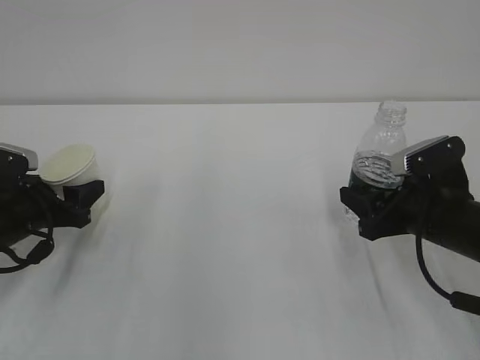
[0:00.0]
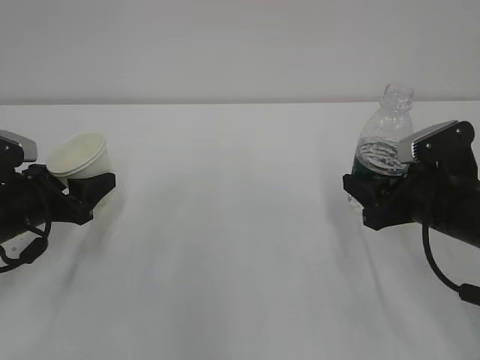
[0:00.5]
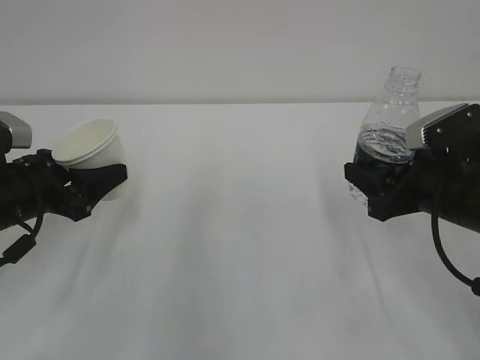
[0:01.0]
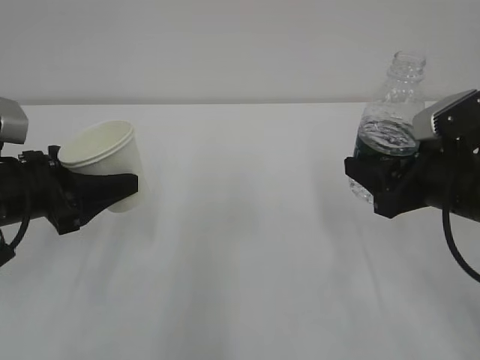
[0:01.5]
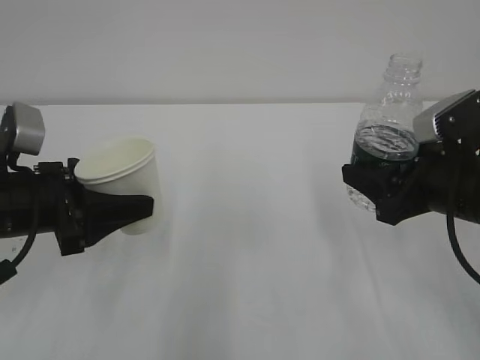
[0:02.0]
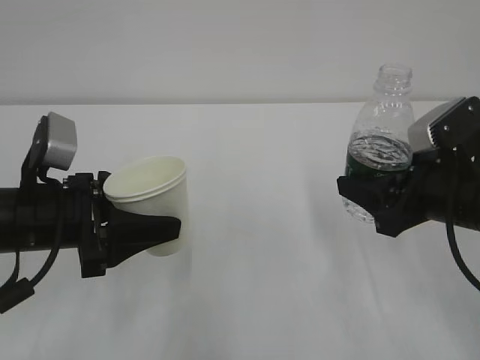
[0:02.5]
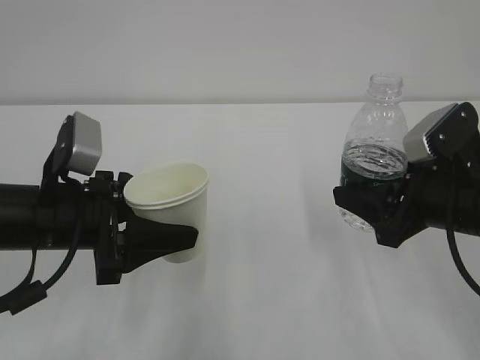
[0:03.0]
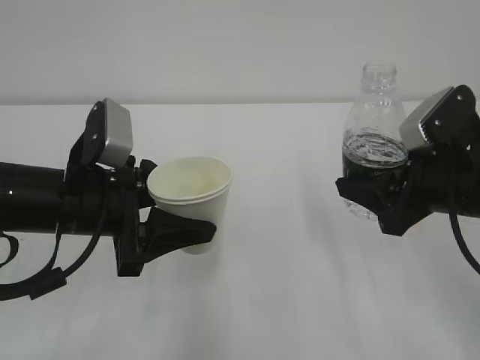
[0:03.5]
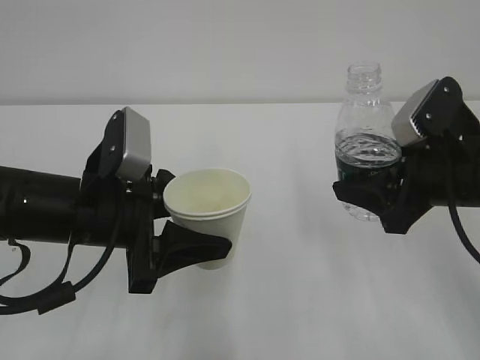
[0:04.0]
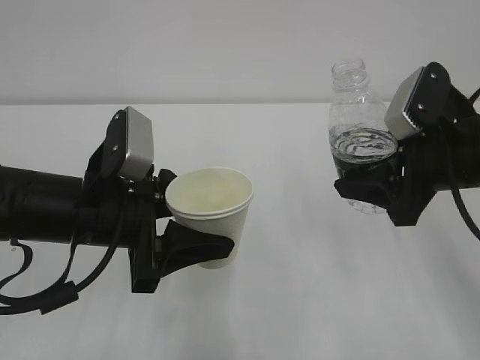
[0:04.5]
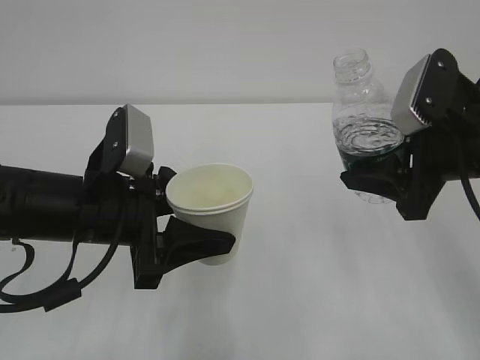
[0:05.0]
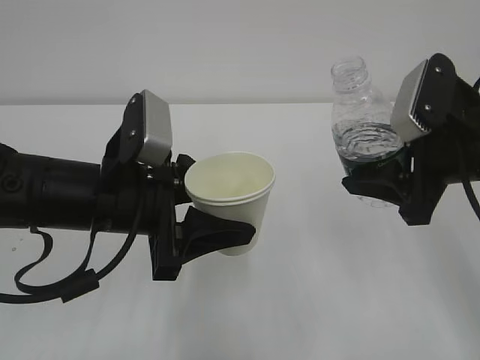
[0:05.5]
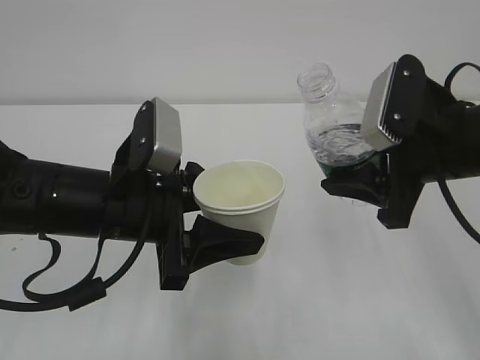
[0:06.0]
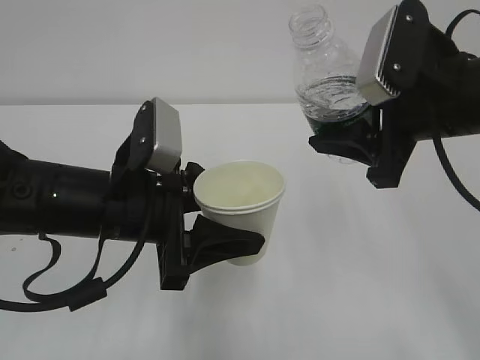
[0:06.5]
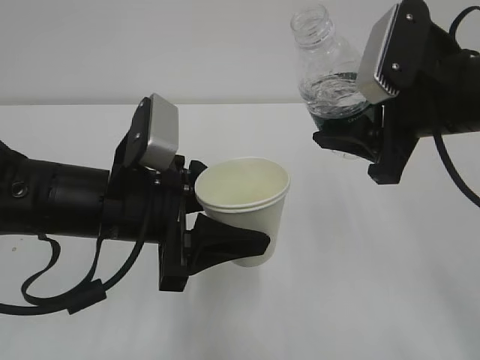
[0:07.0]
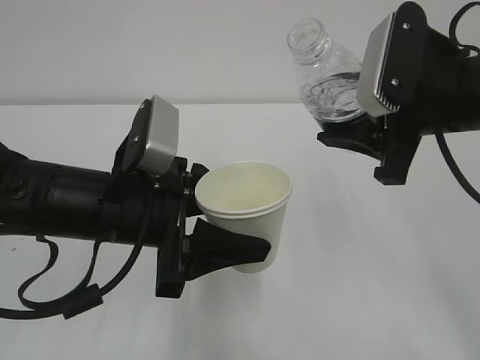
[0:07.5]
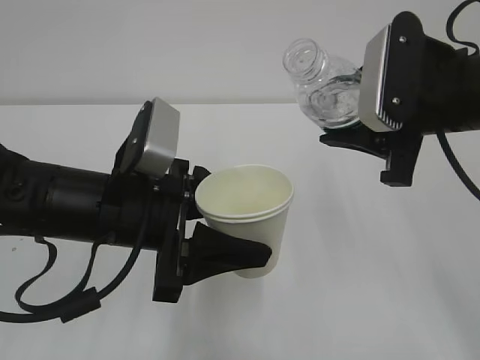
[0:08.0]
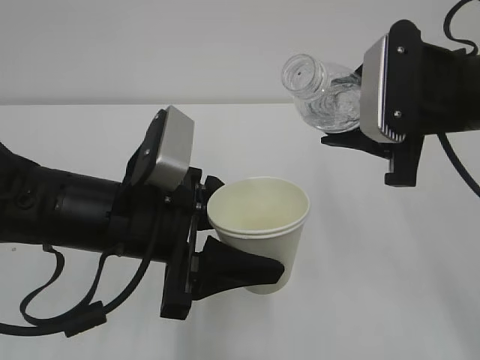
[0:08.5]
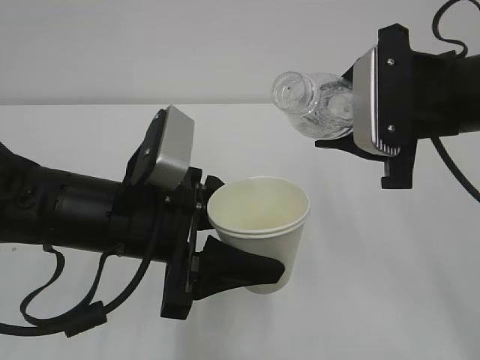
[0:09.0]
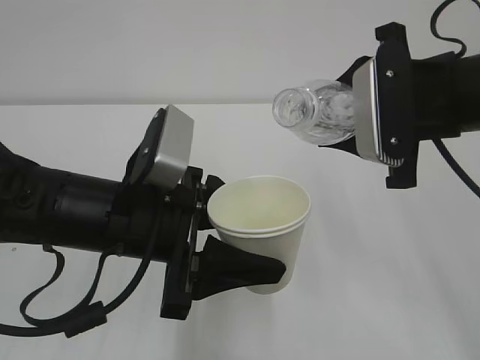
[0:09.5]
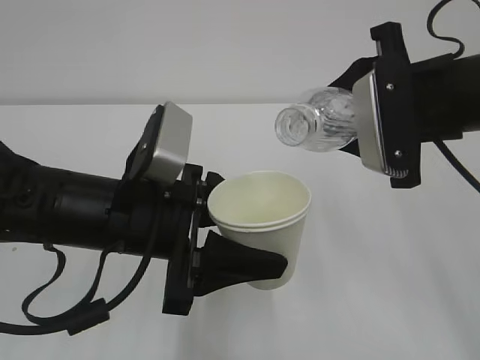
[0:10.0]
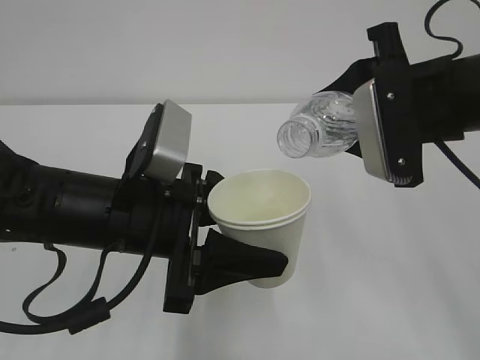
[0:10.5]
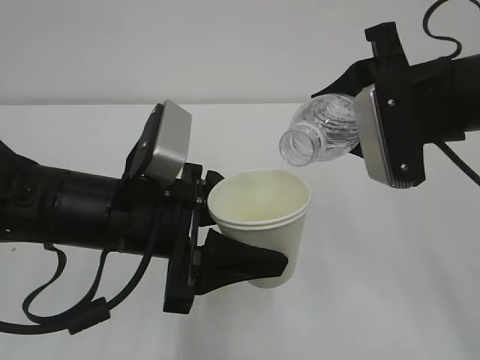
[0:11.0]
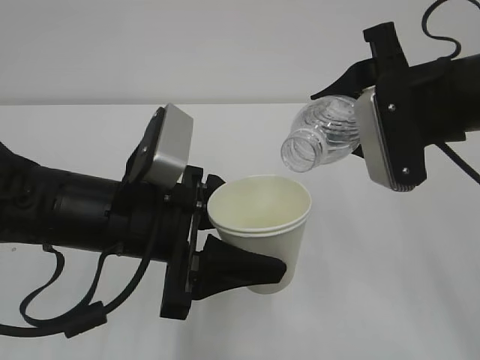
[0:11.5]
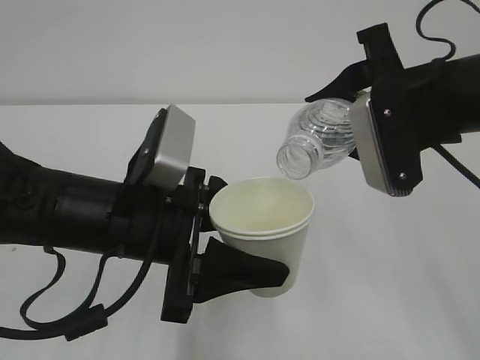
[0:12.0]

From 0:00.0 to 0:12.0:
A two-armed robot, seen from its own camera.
From 0:00.0 to 0:02.0: The right gripper goes some 5 cm upward. Meanwhile the left gripper shifts about 10 cm upward, to the right and backward.
From 0:02.0 to 0:04.0: The left gripper travels to the right by some 10 cm.
From 0:10.0 to 0:12.0: The grippers move only a little.

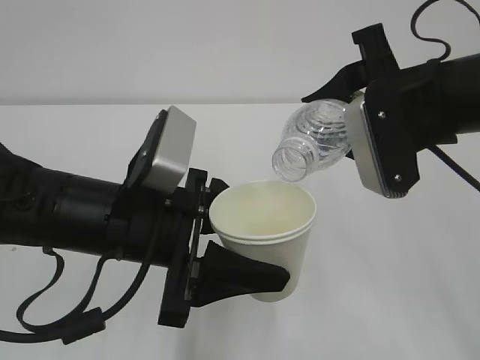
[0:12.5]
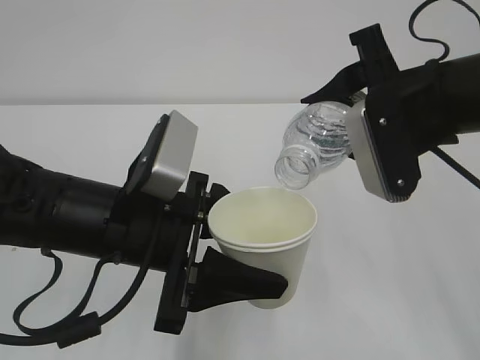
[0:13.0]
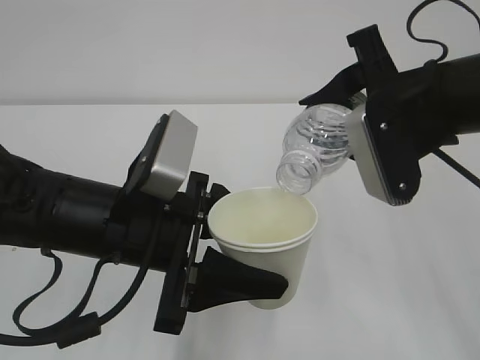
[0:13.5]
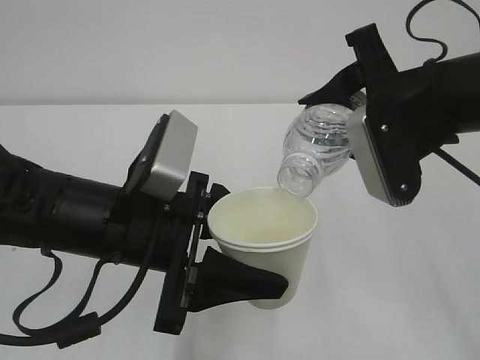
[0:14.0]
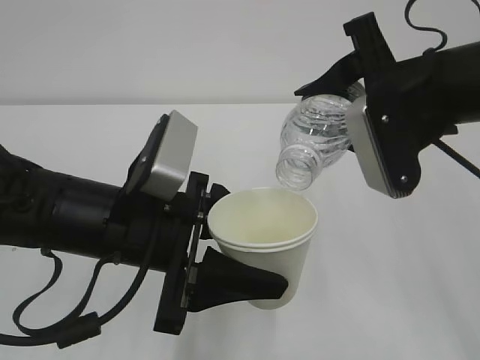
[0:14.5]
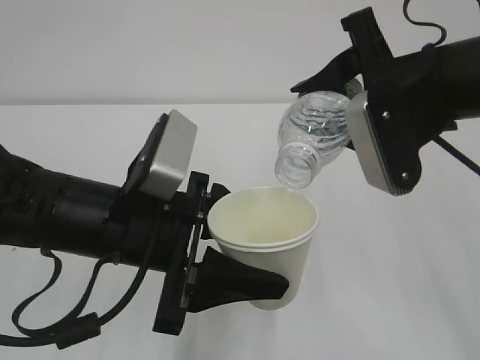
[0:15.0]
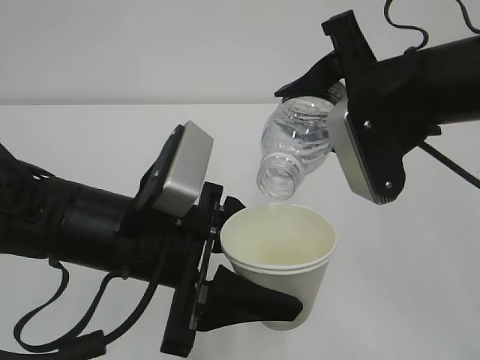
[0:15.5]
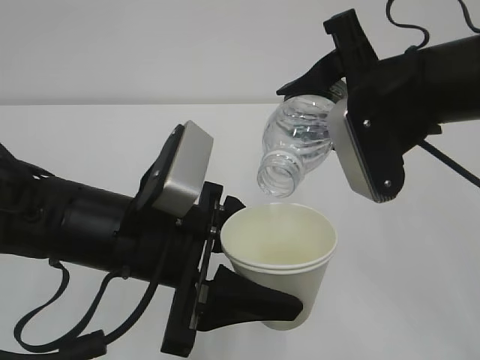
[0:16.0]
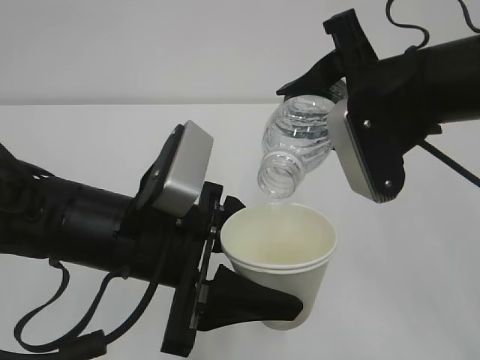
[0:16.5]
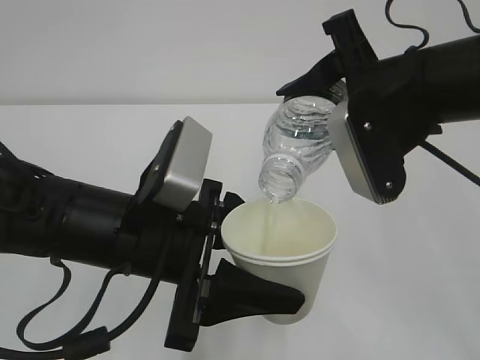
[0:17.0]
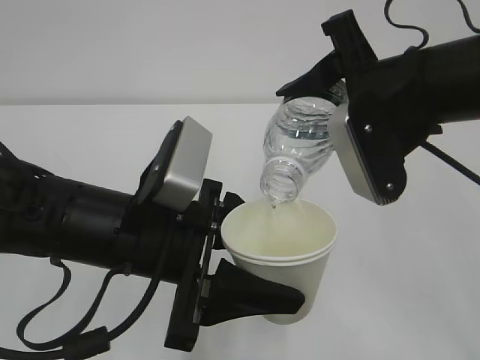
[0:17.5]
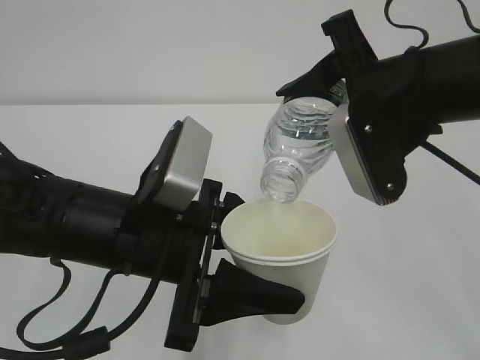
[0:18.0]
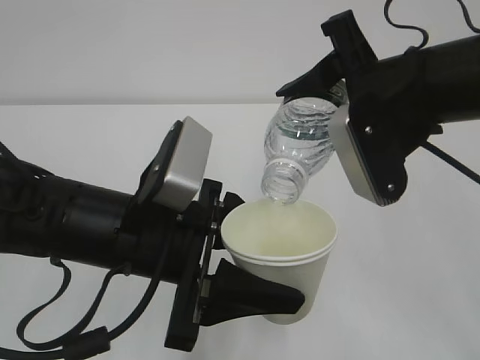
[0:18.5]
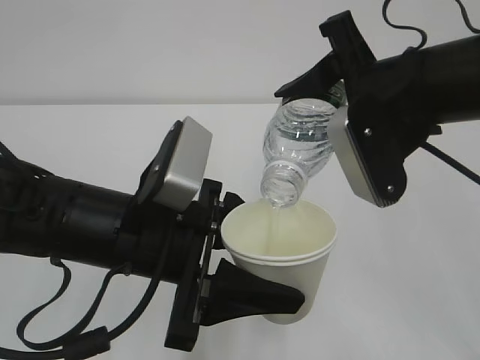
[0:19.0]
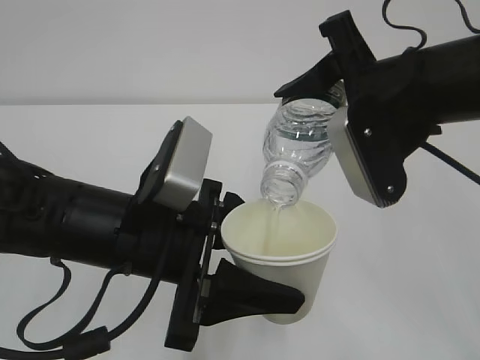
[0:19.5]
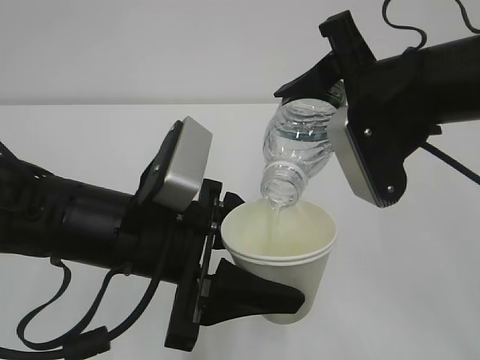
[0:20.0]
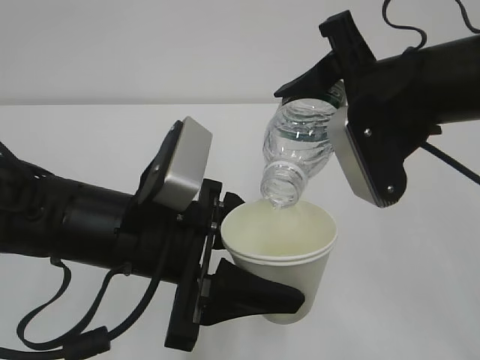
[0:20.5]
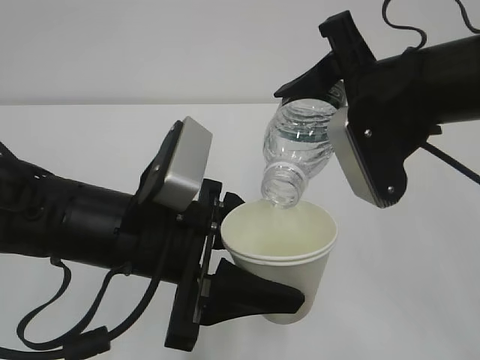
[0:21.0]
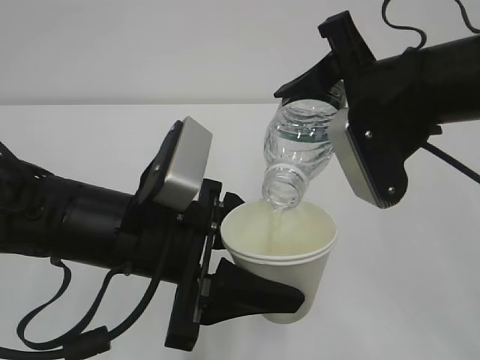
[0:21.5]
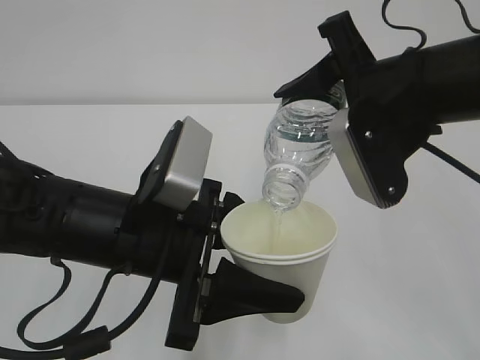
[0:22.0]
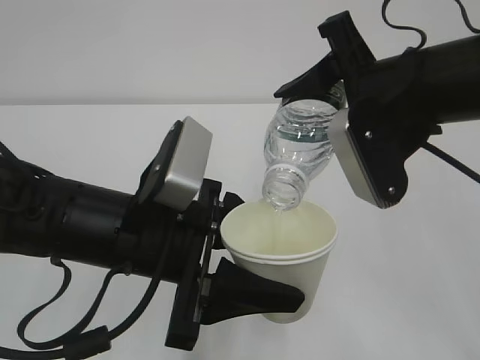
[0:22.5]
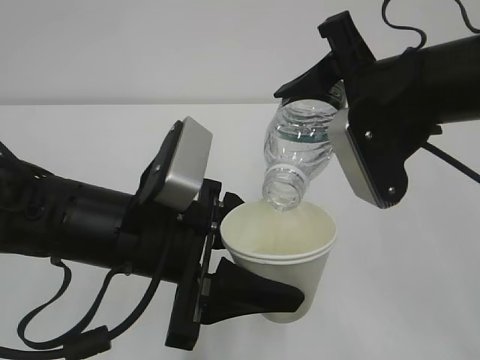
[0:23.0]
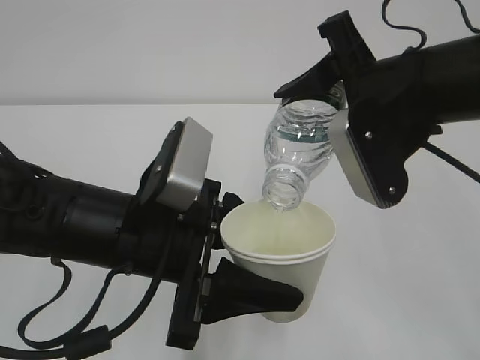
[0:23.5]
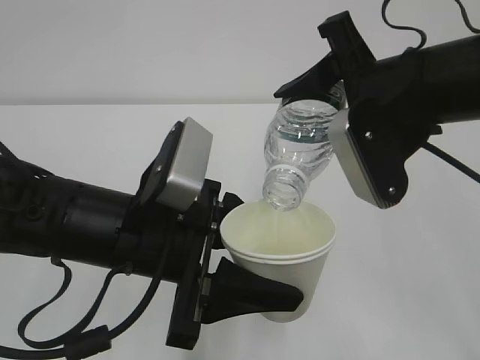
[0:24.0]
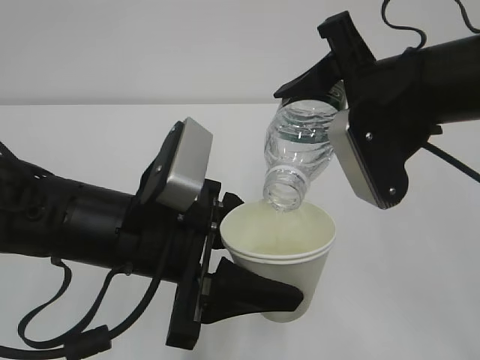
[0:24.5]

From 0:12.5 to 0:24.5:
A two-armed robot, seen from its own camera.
From 0:12.5 to 0:14.5: The grippers move only a little.
From 0:16.5 to 0:20.5: Both grippers stay about where they are.
From 0:20.5 to 0:24.5: Neither gripper changes place.

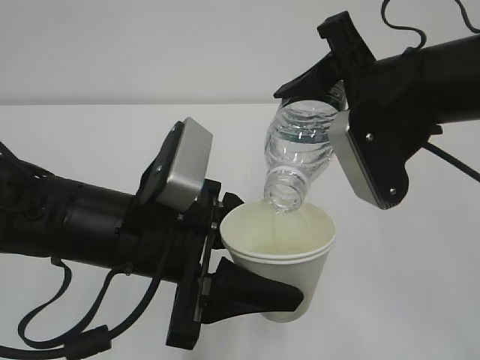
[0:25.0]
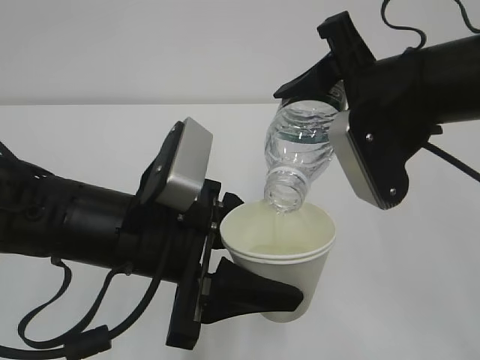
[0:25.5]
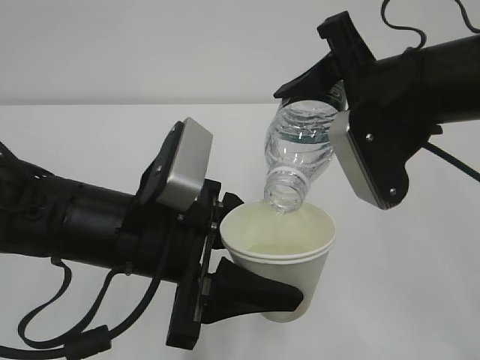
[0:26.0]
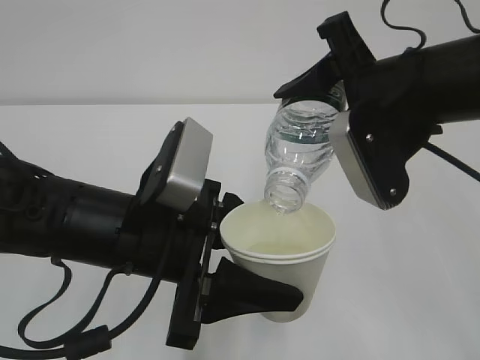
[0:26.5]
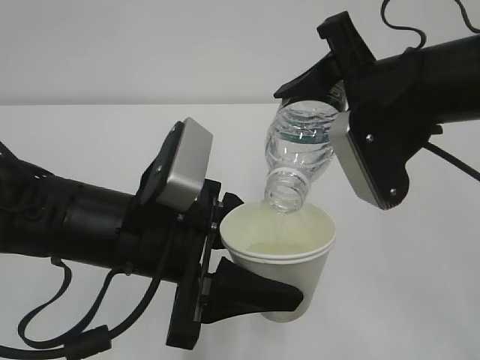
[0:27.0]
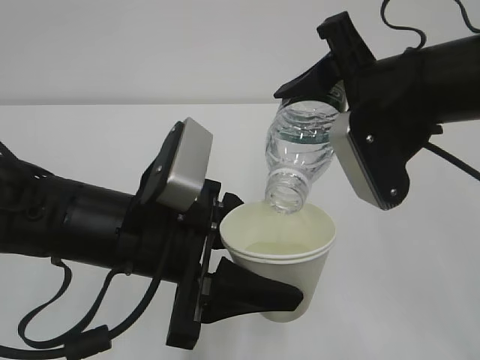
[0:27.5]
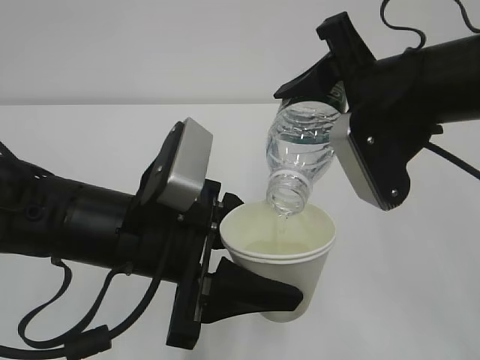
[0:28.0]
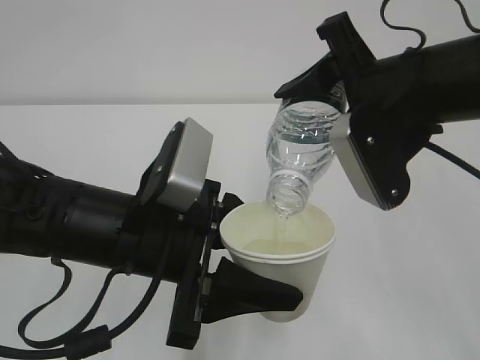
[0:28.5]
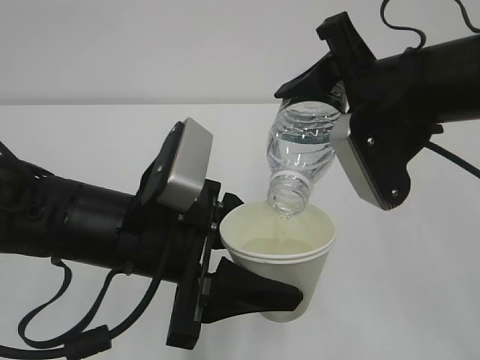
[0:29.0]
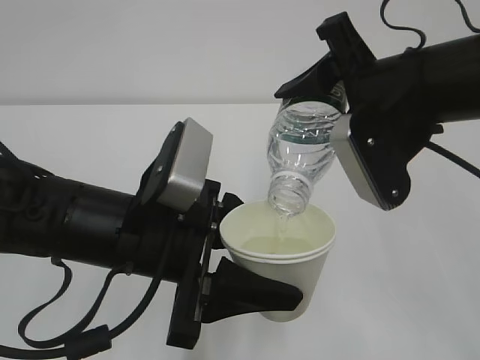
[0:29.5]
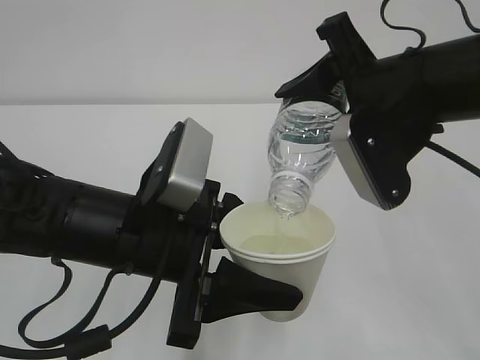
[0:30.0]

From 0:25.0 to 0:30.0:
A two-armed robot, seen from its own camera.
From 0:25.0 to 0:30.0: The two grippers keep their place.
